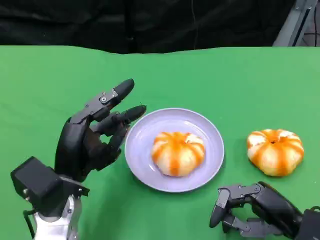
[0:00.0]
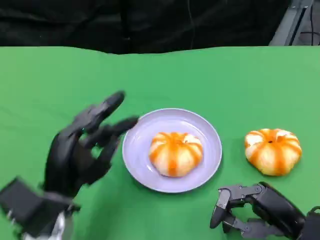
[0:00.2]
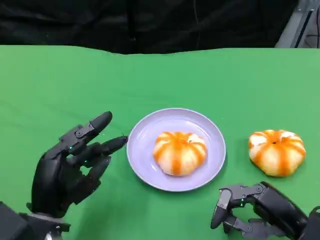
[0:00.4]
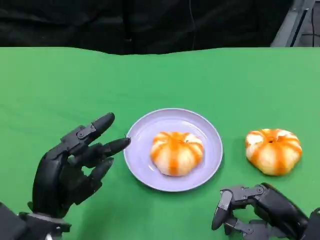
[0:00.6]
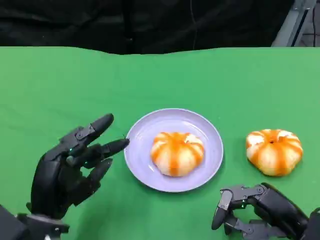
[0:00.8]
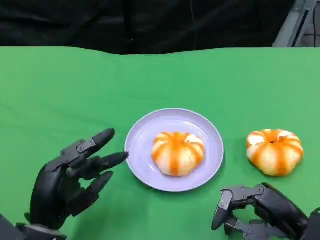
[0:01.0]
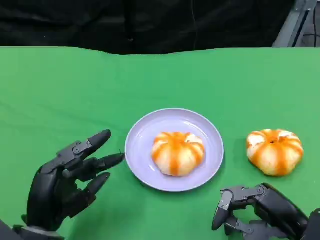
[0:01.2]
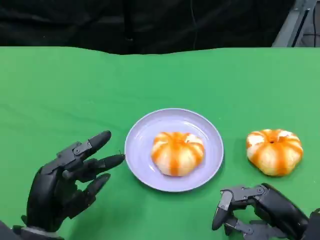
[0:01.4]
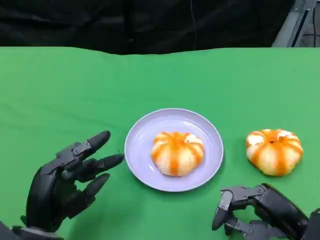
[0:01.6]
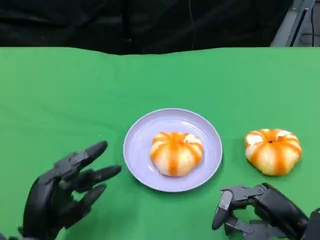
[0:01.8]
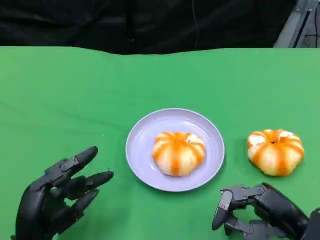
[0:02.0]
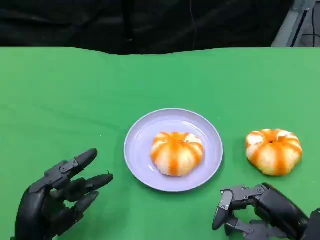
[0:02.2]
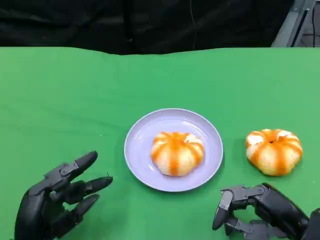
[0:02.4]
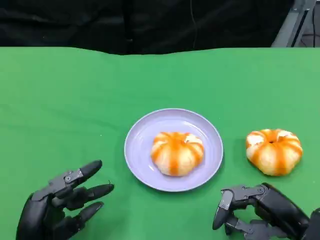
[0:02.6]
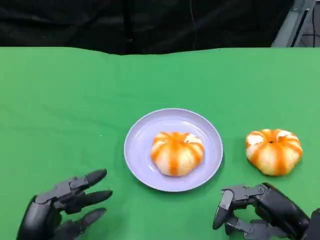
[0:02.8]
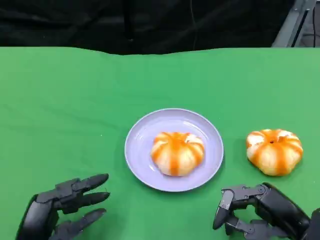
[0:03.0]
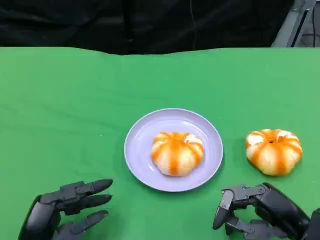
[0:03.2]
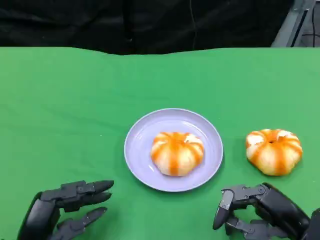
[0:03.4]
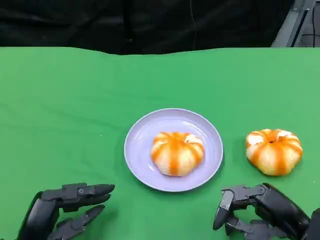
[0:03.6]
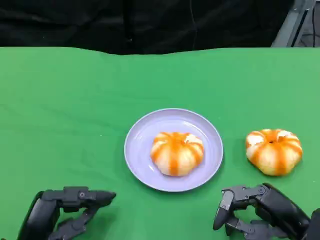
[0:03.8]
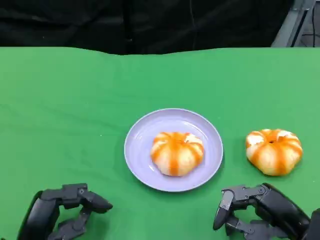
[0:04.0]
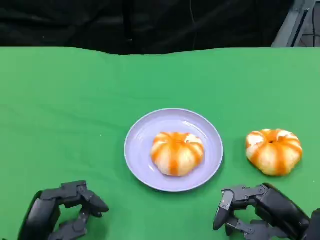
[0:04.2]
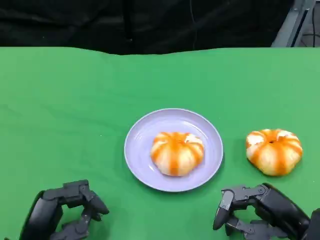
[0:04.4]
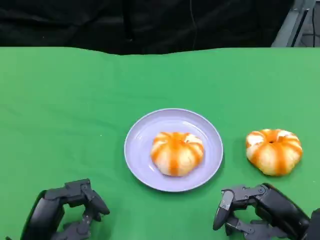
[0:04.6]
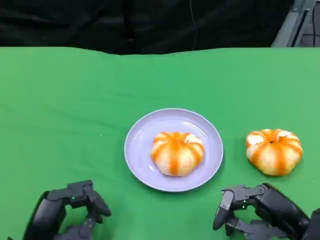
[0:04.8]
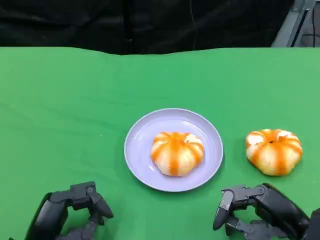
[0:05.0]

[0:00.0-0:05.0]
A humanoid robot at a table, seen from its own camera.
Task of the whole recording: Grasp the bread from the table and place it into the plate.
0:00.0 to 0:01.6: The left hand heads backward, covering some 5 cm.
0:01.6 to 0:03.4: The hands move only a little.
0:03.4 to 0:05.0: Both hands stay put.

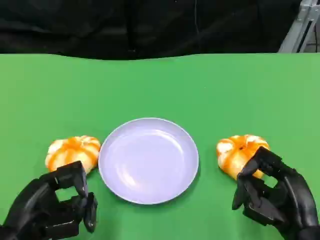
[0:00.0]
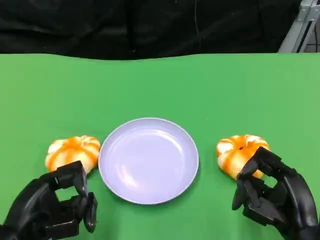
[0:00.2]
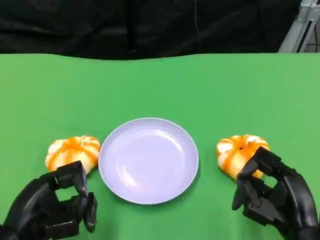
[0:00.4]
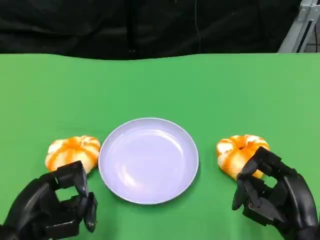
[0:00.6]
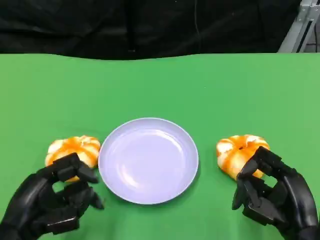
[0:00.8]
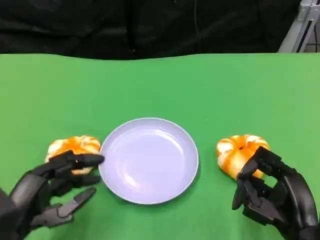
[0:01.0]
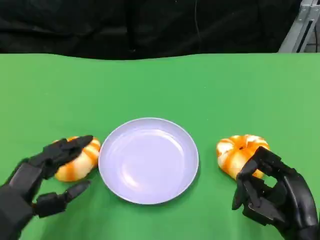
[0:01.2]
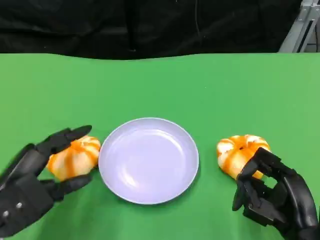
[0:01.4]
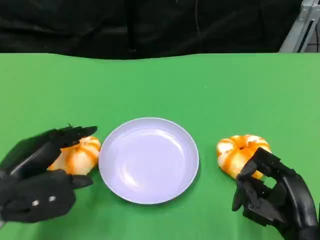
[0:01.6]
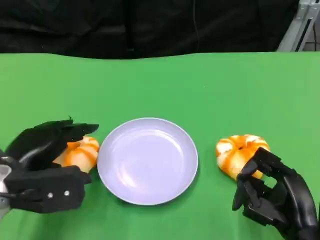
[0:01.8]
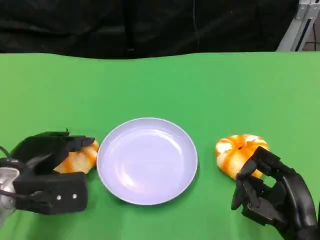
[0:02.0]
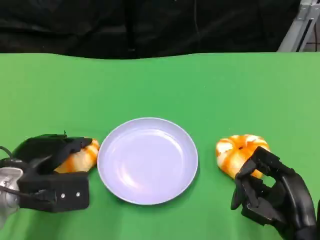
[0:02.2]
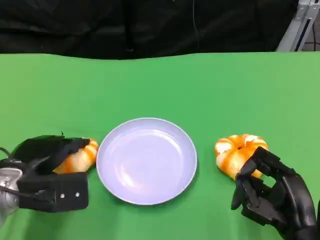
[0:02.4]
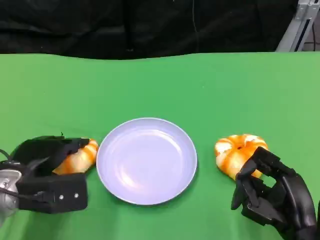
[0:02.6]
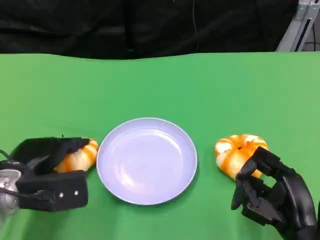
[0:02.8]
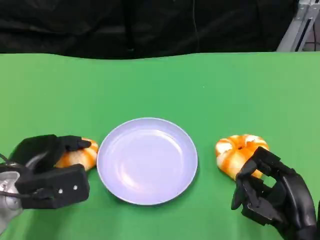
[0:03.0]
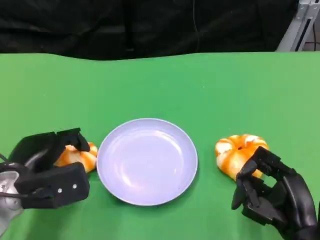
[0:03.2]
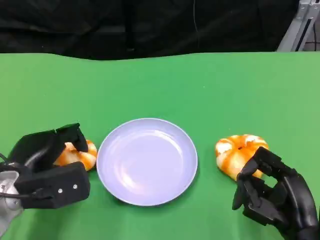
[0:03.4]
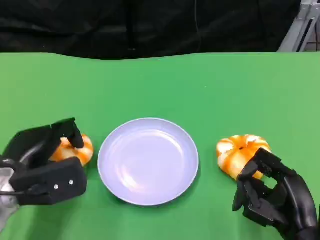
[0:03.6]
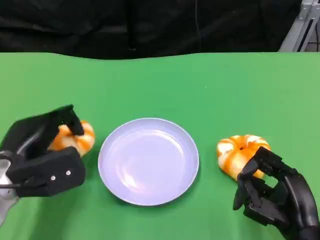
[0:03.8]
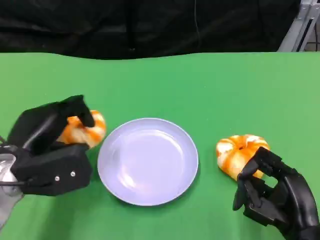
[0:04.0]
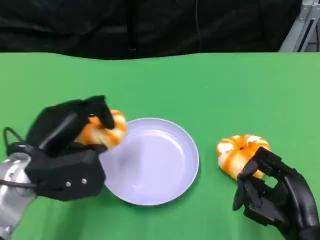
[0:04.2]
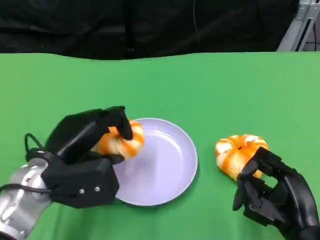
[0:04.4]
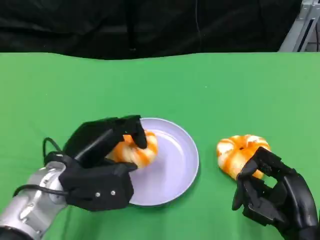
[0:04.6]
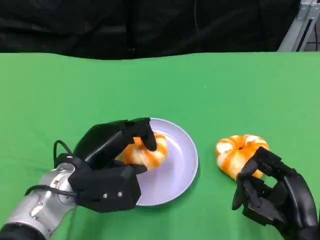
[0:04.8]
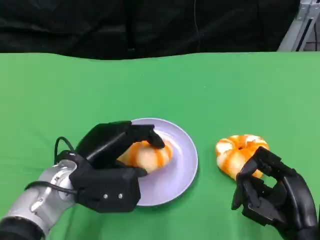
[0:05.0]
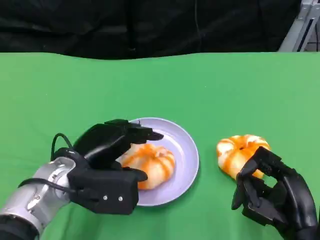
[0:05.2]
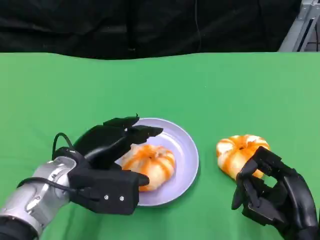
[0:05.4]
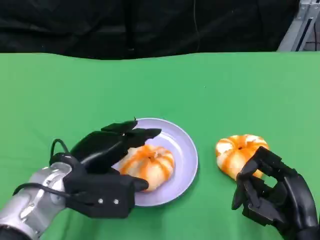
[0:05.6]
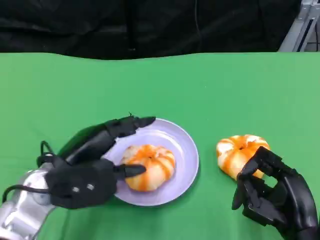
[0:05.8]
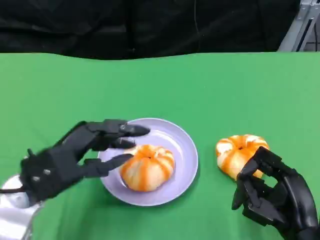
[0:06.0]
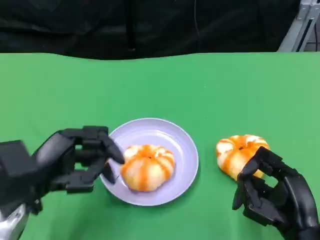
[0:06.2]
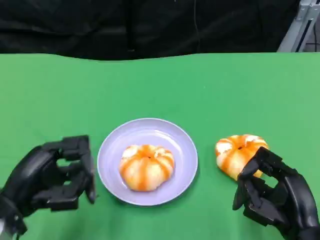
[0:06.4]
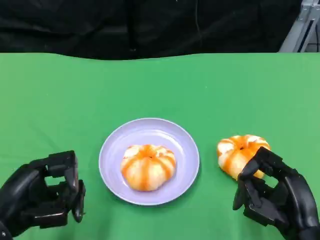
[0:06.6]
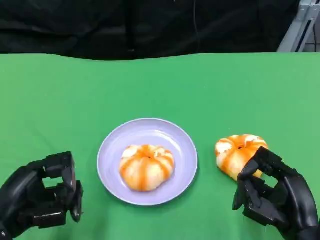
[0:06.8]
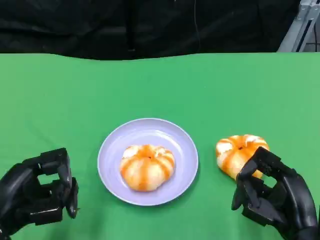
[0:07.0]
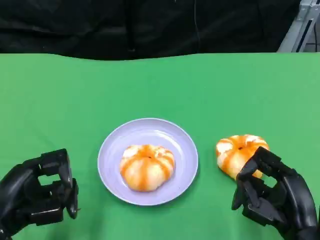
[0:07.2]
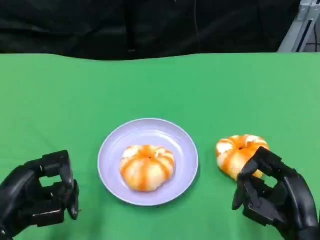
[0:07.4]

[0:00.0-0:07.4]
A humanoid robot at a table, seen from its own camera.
Task of the whole recording: Grasp the bread from the table and place it into the plate.
0:01.4 to 0:03.0: The left hand heads forward, covering some 5 cm.
0:03.0 to 0:04.4: The left hand goes about 5 cm to the right.
0:06.0 to 0:07.4: The left hand goes some 10 cm backward and to the left.

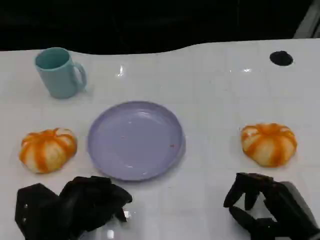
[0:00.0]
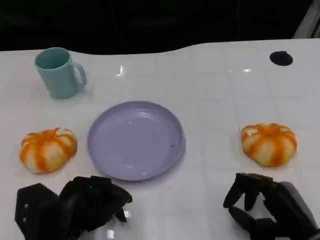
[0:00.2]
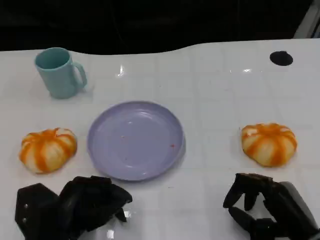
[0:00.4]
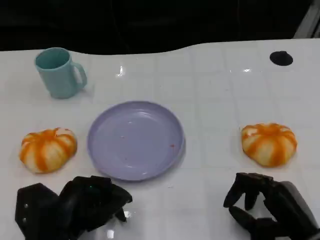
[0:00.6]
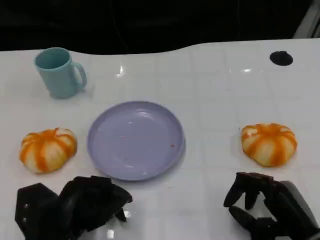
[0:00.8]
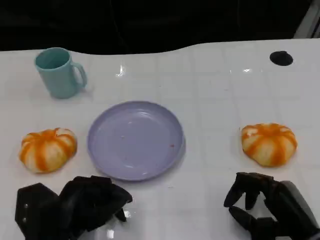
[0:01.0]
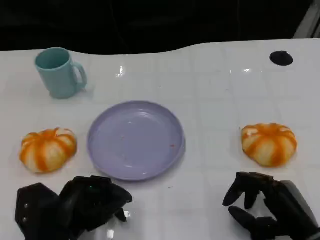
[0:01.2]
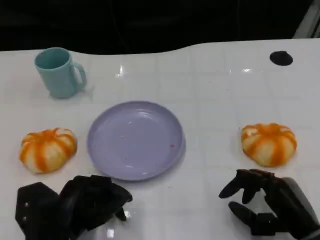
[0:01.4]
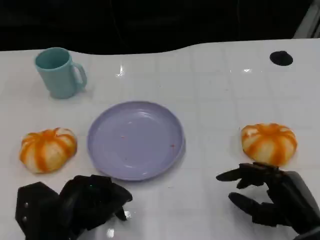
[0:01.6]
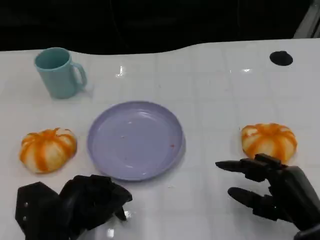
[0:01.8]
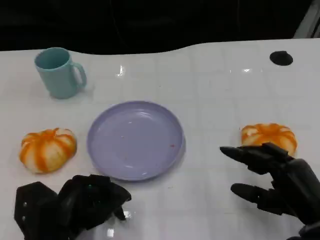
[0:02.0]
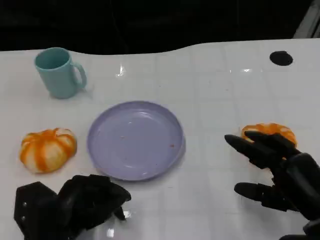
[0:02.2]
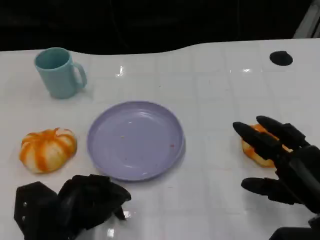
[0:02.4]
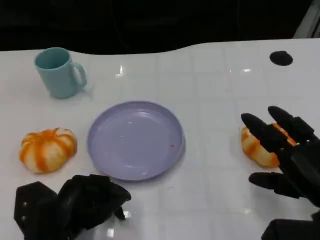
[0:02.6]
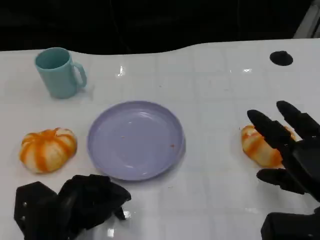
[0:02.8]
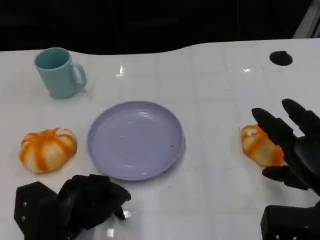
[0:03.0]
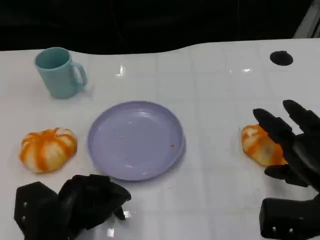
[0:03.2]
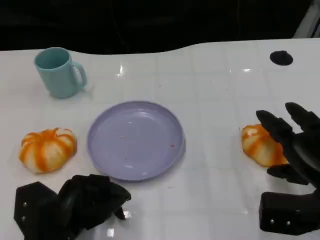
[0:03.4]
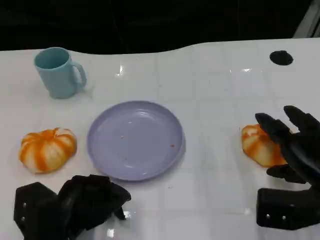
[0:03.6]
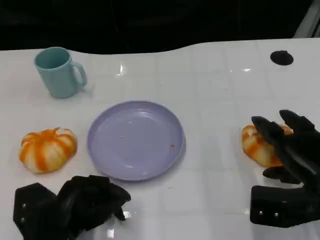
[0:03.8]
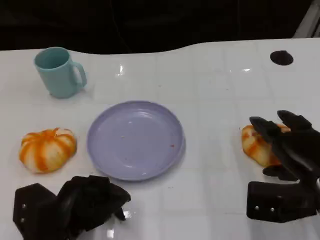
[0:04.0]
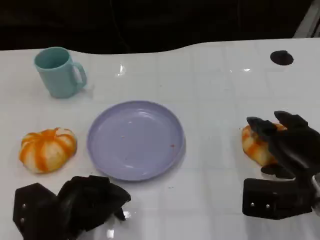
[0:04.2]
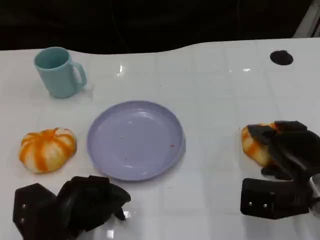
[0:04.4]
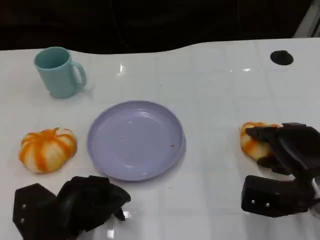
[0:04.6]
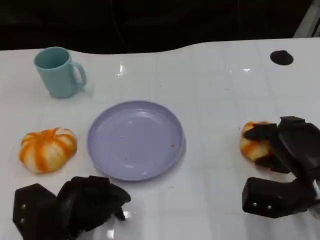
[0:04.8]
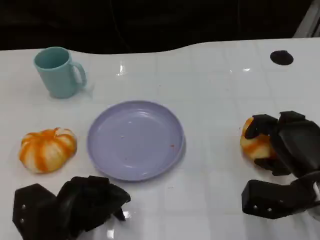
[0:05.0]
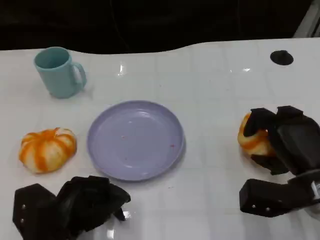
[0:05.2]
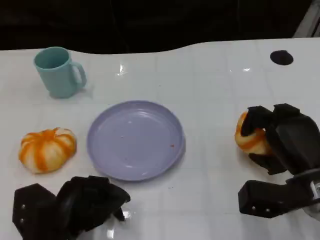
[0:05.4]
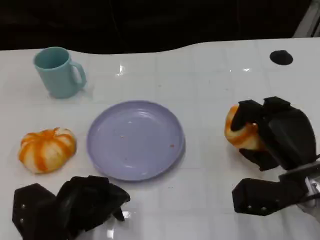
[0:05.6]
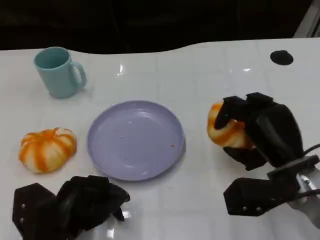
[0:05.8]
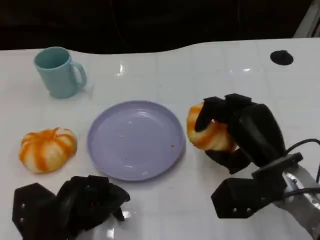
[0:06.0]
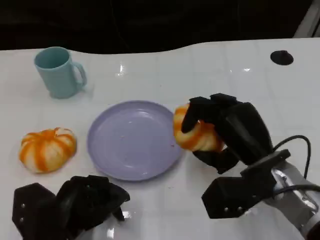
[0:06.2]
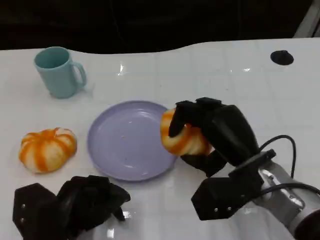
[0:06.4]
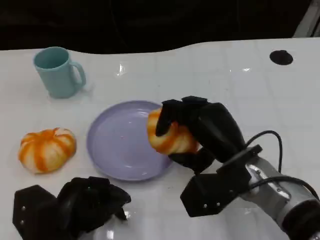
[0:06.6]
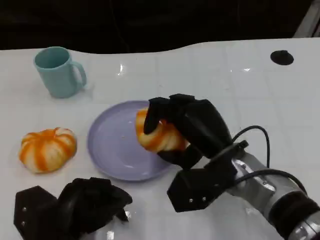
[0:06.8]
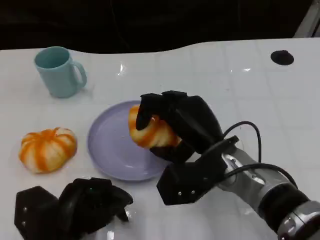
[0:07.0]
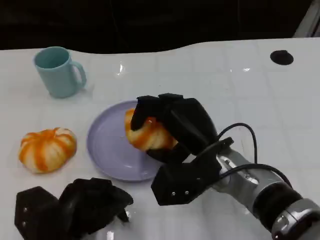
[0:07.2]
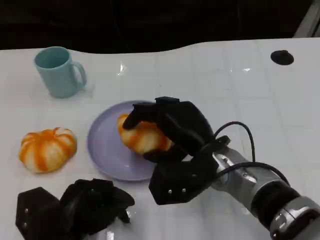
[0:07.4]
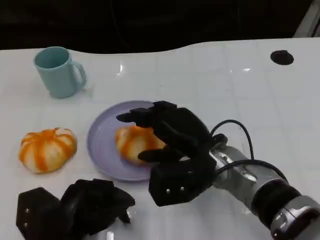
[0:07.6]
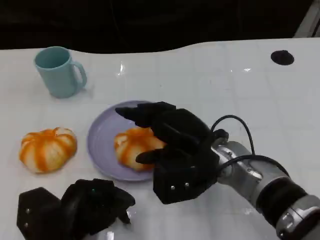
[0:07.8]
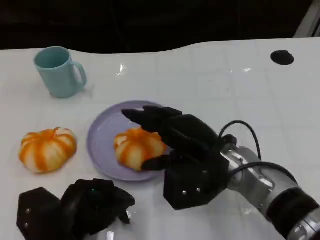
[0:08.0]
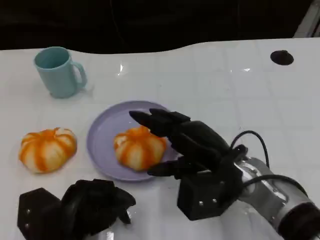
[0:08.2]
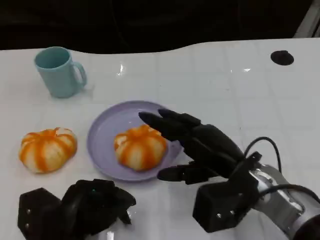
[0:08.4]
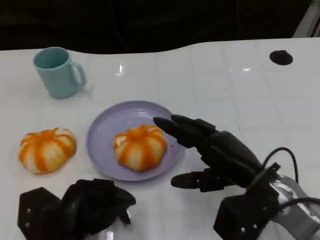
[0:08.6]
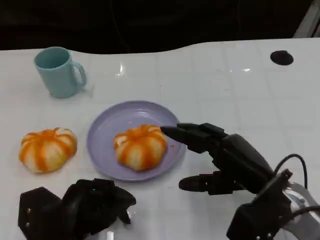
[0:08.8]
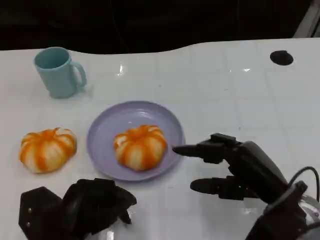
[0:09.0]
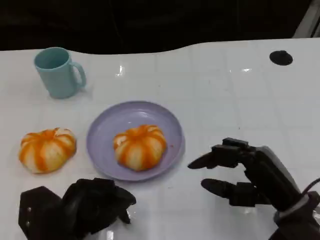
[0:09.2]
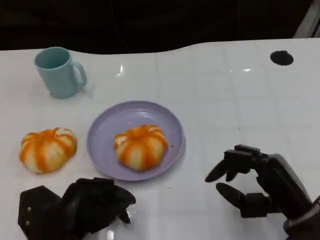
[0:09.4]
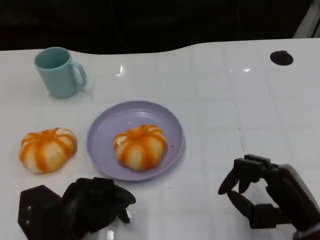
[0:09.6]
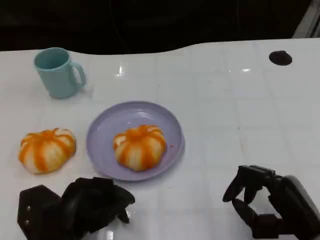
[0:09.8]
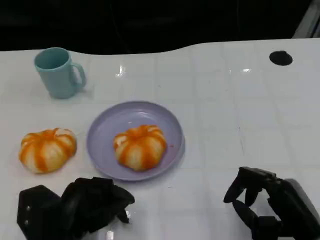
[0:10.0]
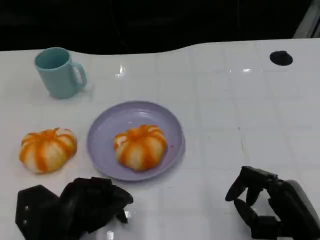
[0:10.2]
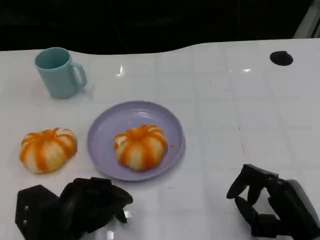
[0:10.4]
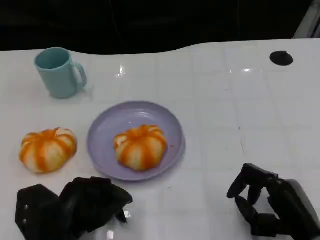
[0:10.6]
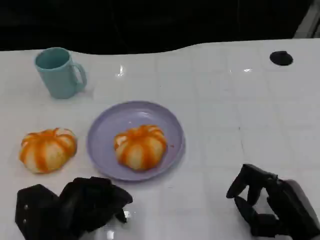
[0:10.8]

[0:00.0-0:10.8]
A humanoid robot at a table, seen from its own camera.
Task of the whole recording: Grasp the bread from the table and place it into the plate.
0:00.0 to 0:01.6: The hands stay close to where they were, moving slightly.
0:01.6 to 0:03.0: The right hand shifts about 5 cm upward.
0:03.0 to 0:04.6: The right hand changes place by about 5 cm.
0:04.6 to 0:06.2: The right hand heads to the left, covering roughly 10 cm.
0:06.2 to 0:07.8: The right hand heads to the left, covering about 5 cm.
0:07.8 to 0:09.2: The right hand moves to the right and backward, roughly 15 cm.
0:09.2 to 0:10.8: The right hand shifts by about 5 cm.
